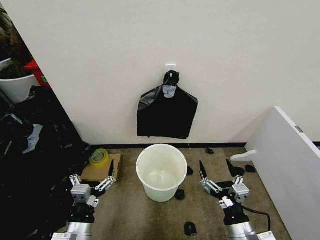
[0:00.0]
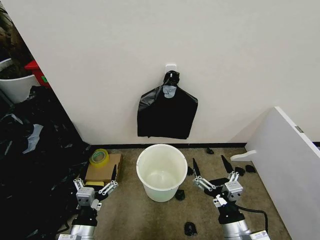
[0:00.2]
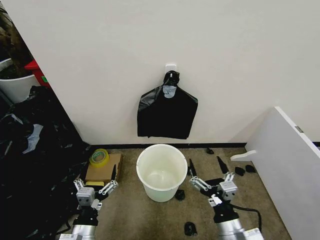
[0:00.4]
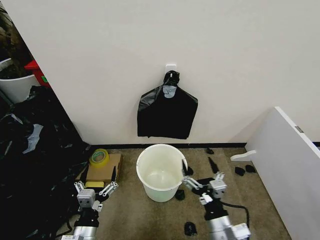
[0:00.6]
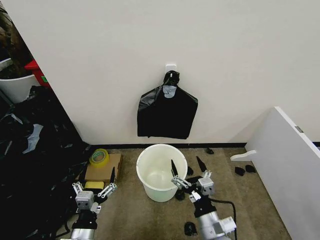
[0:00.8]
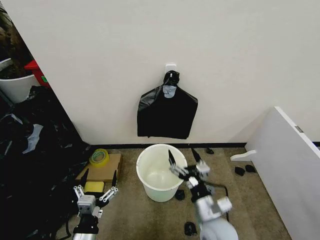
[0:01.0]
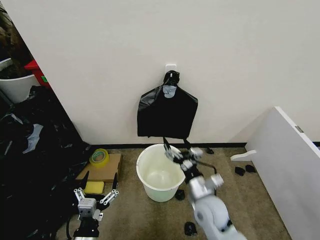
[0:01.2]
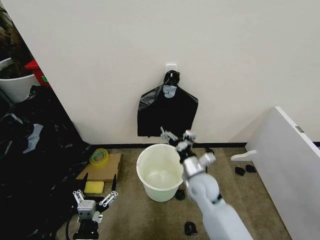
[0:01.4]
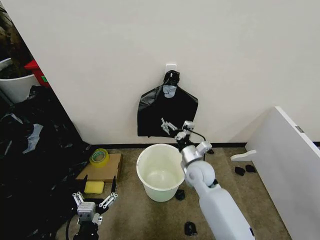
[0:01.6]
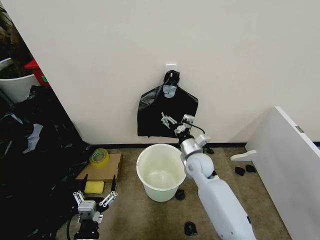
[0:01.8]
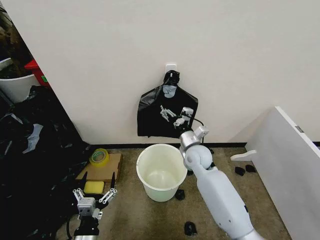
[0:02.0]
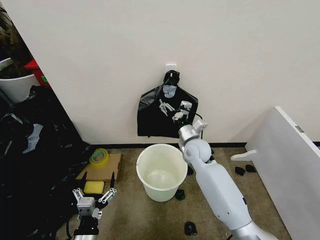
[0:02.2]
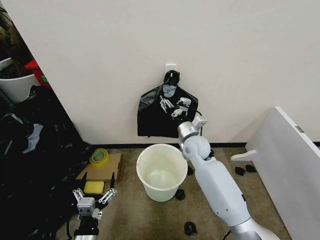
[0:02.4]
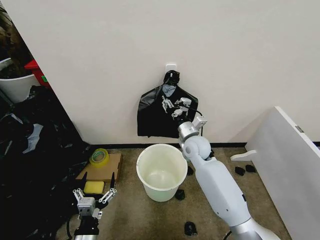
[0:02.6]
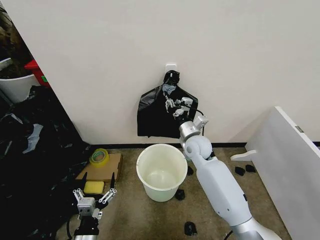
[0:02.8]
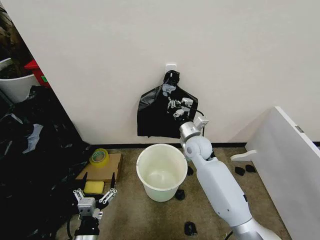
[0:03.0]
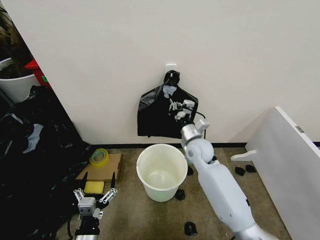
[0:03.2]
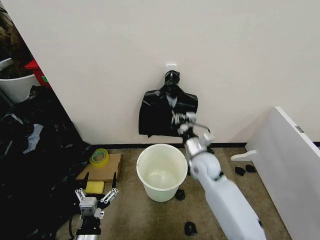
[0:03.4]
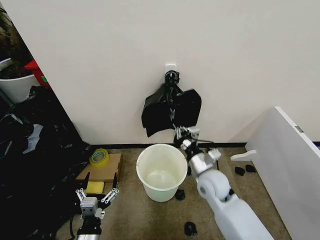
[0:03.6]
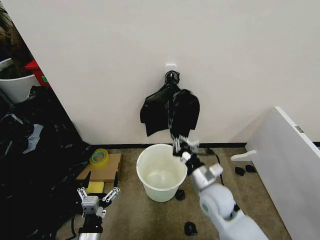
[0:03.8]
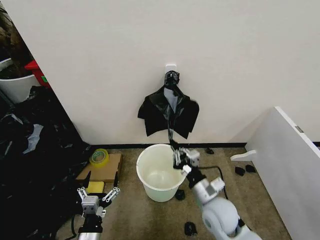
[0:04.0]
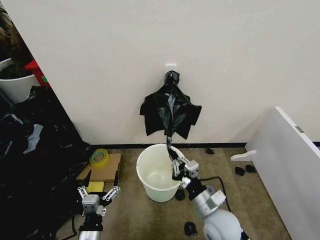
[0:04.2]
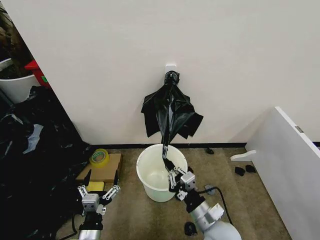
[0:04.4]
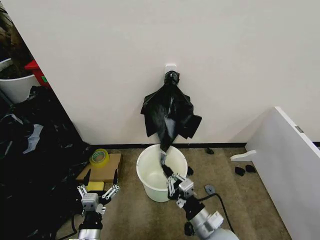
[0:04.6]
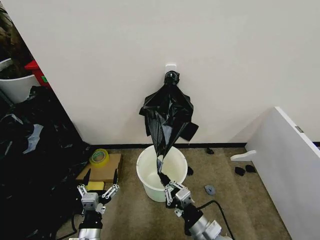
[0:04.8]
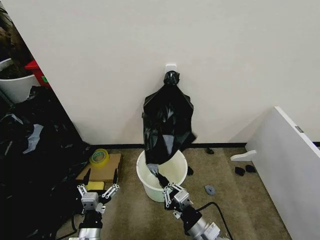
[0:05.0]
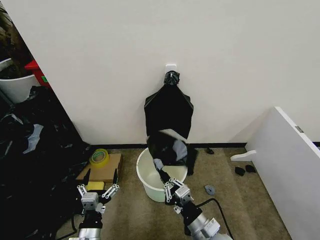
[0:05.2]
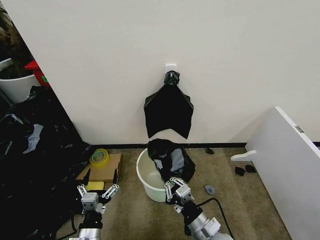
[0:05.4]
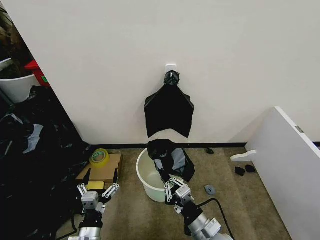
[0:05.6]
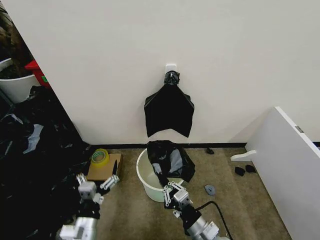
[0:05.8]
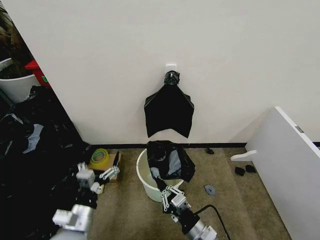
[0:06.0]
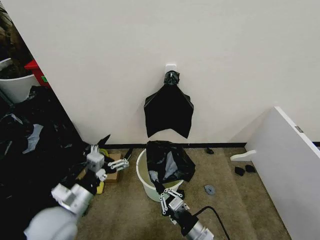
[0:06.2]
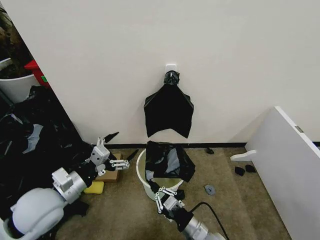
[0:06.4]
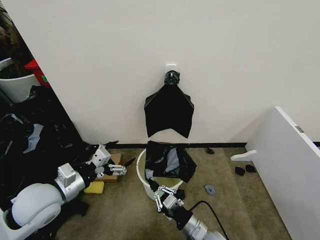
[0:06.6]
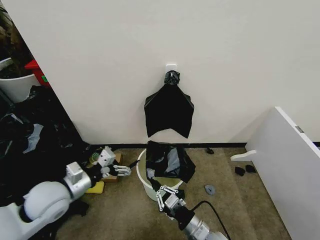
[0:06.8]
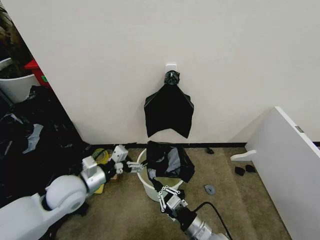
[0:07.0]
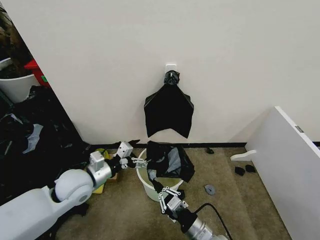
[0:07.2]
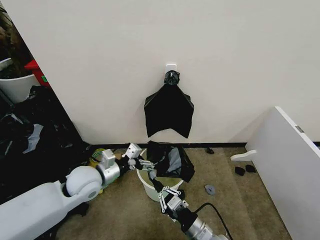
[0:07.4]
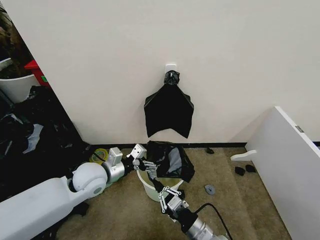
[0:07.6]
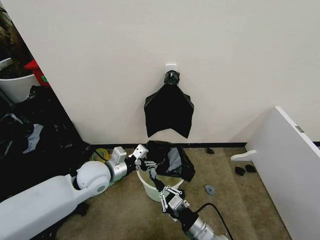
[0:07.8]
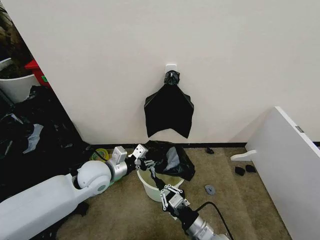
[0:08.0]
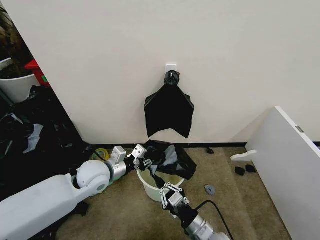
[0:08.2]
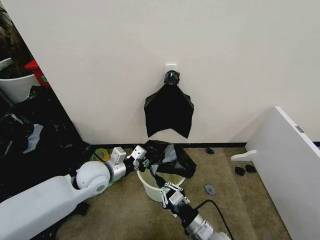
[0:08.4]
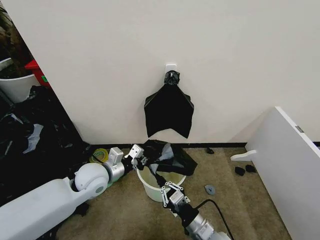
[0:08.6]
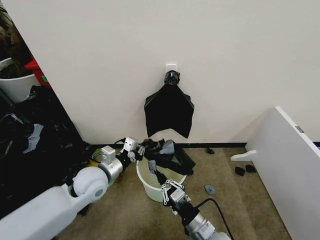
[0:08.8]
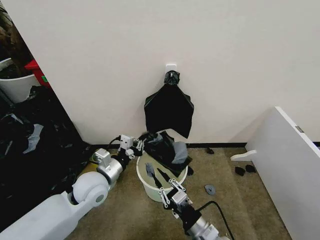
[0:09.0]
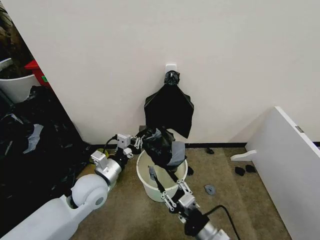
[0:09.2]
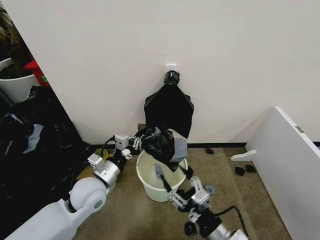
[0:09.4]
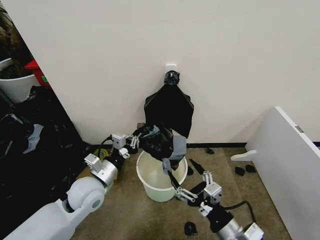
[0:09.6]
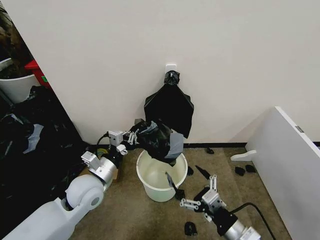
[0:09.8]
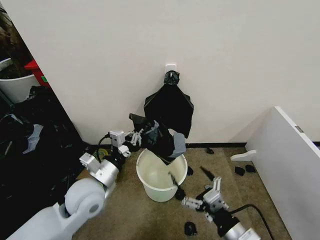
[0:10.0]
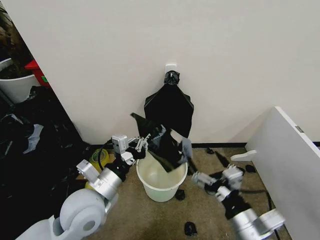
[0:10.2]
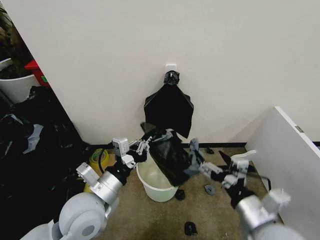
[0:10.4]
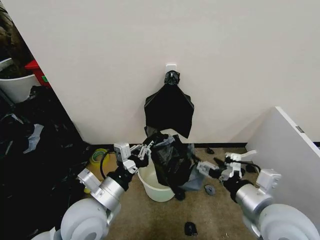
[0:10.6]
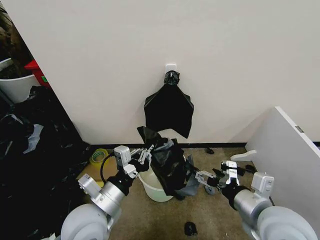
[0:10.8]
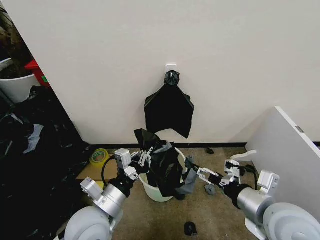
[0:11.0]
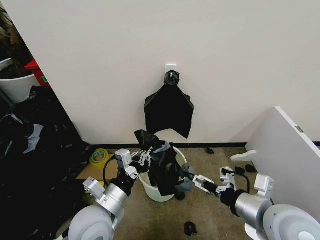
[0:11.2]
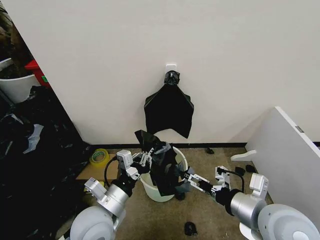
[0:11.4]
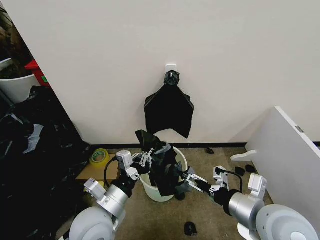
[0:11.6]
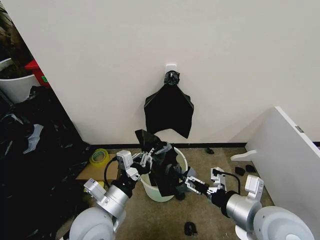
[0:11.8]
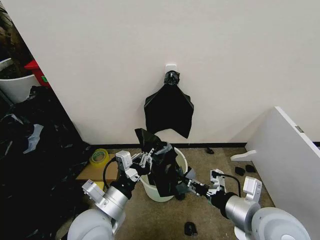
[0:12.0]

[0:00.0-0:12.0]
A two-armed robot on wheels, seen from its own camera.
Task of the whole recording: Place the garbage bag over the trash bin.
0:01.6 to 0:03.0: The right gripper is displaced forward and upward by about 10 cm, and closes.
0:03.0 to 0:04.4: The right gripper goes approximately 25 cm backward.
0:04.4 to 0:06.0: The right gripper shifts by approximately 5 cm. Meanwhile the left gripper moves upward, roughly 5 cm.
0:06.0 to 0:07.6: The left gripper travels forward by about 15 cm.
0:07.6 to 0:09.0: The left gripper closes.
0:09.0 to 0:10.4: The left gripper goes some 10 cm backward and upward. Meanwhile the right gripper goes some 15 cm upward and to the right, and opens.
0:10.4 to 0:12.0: The right gripper closes its fingers.

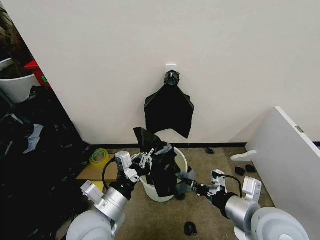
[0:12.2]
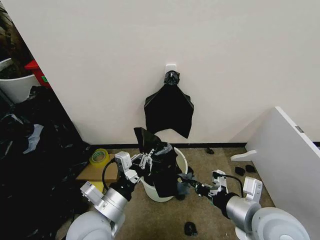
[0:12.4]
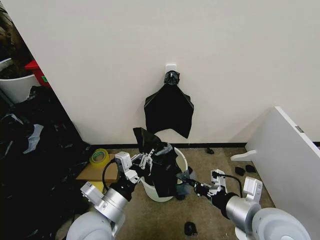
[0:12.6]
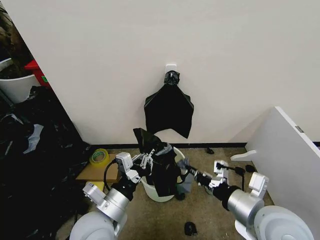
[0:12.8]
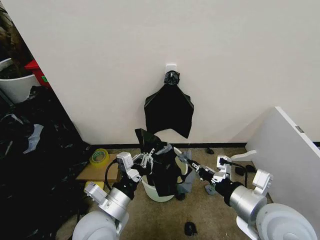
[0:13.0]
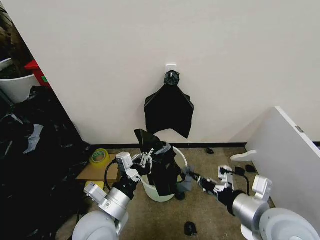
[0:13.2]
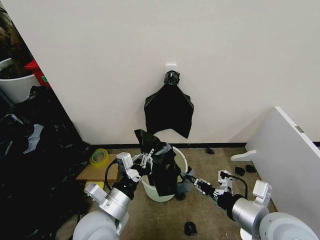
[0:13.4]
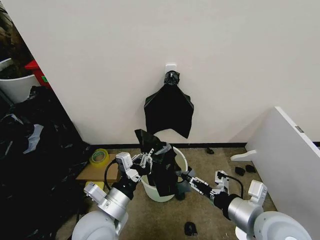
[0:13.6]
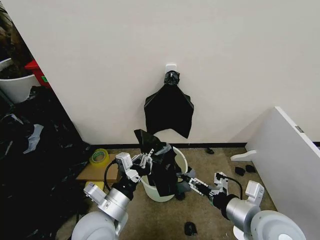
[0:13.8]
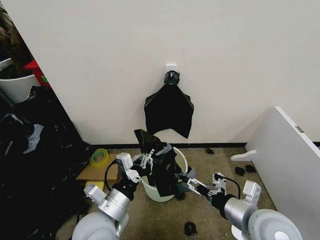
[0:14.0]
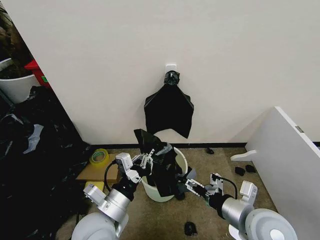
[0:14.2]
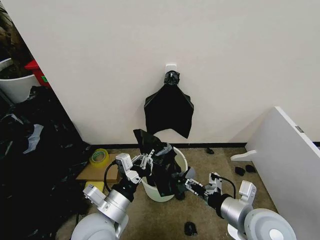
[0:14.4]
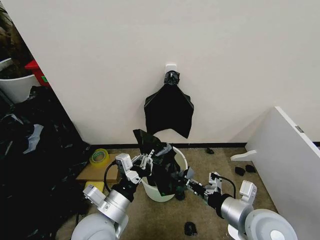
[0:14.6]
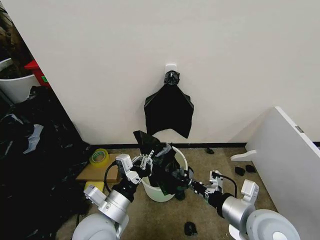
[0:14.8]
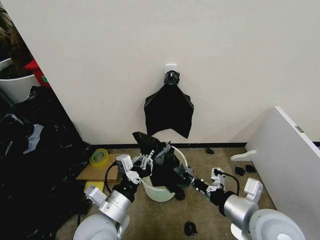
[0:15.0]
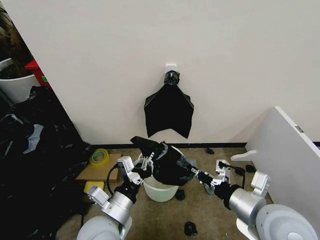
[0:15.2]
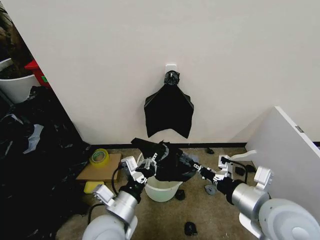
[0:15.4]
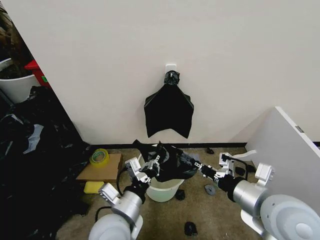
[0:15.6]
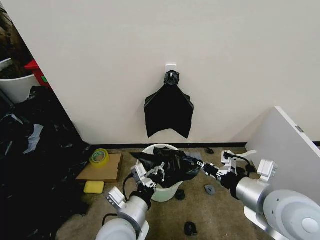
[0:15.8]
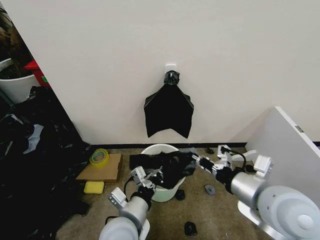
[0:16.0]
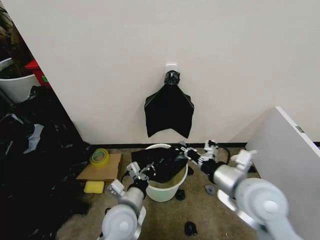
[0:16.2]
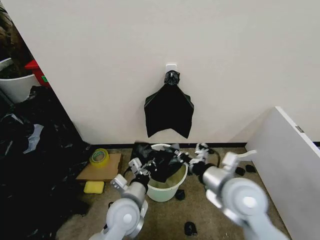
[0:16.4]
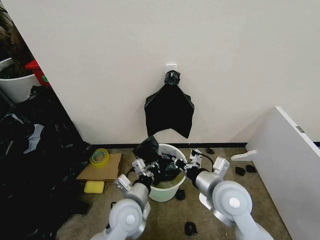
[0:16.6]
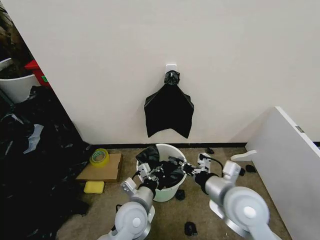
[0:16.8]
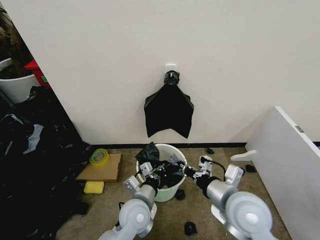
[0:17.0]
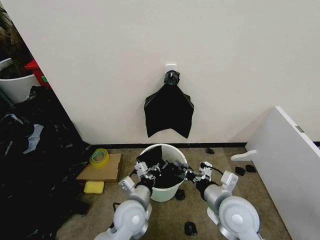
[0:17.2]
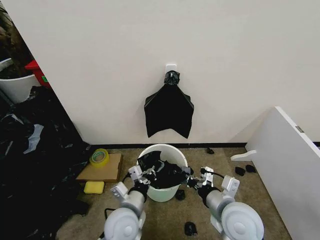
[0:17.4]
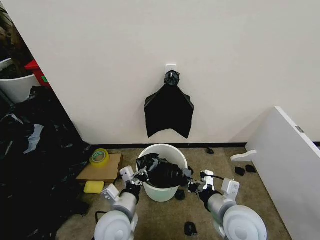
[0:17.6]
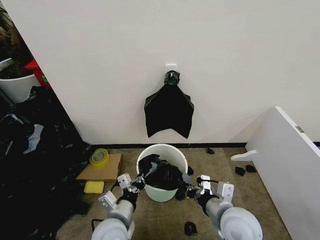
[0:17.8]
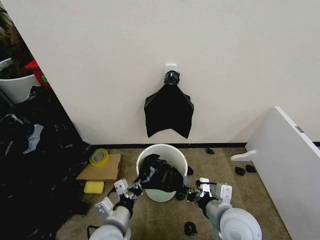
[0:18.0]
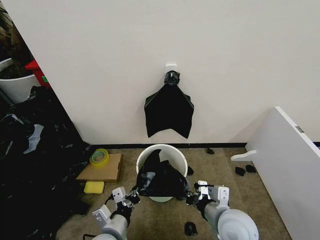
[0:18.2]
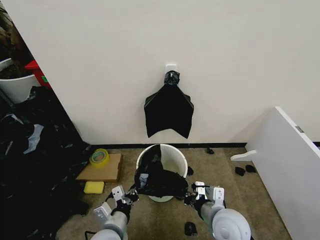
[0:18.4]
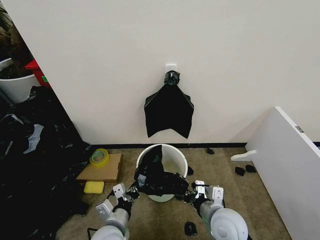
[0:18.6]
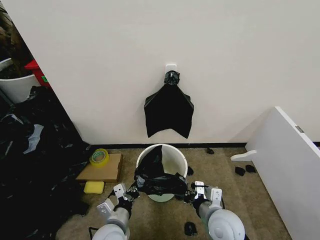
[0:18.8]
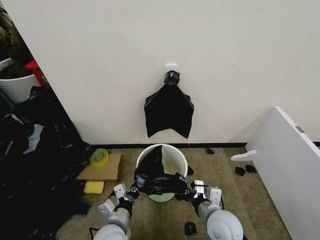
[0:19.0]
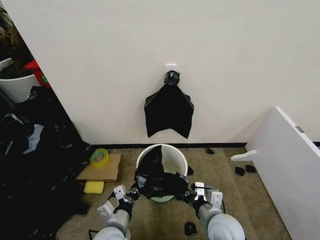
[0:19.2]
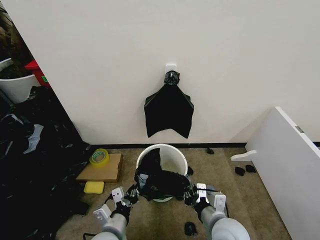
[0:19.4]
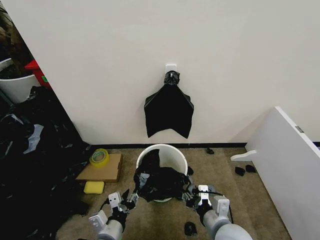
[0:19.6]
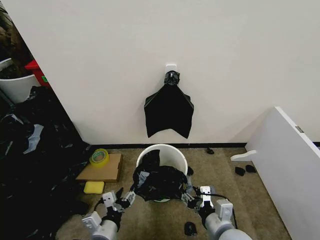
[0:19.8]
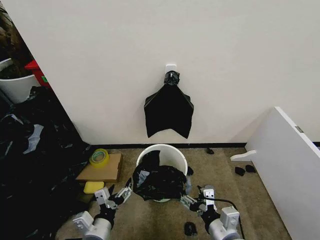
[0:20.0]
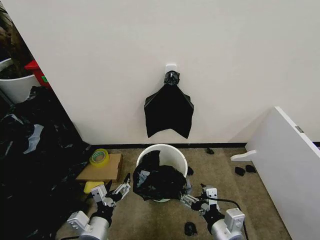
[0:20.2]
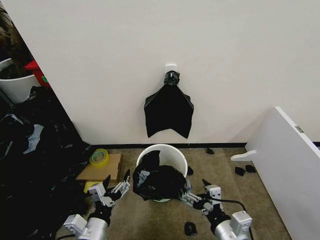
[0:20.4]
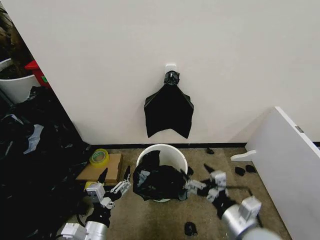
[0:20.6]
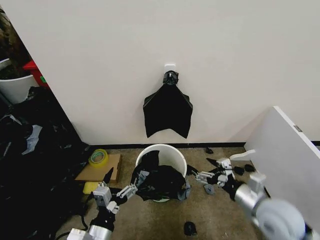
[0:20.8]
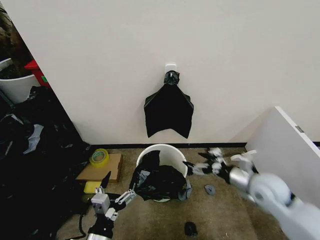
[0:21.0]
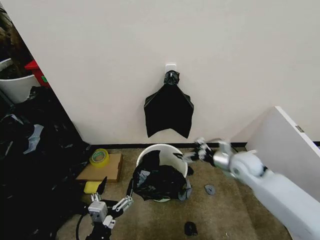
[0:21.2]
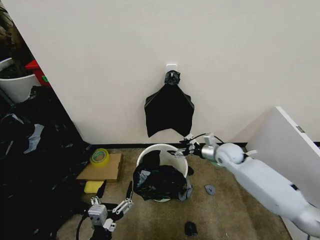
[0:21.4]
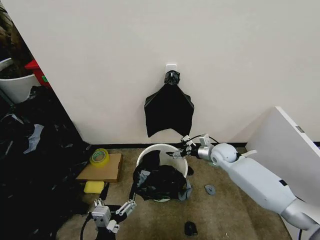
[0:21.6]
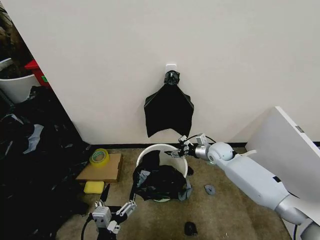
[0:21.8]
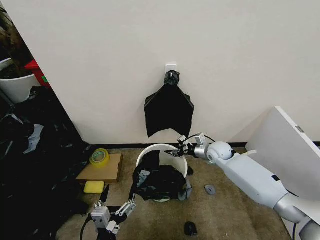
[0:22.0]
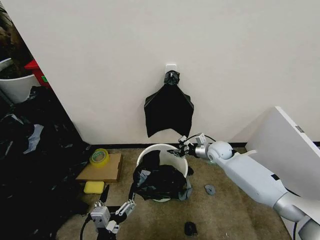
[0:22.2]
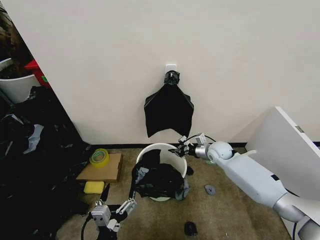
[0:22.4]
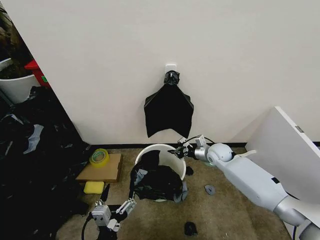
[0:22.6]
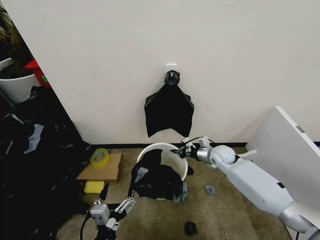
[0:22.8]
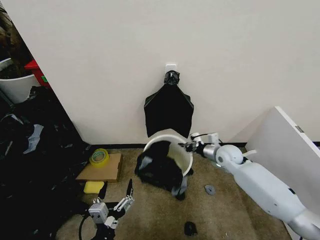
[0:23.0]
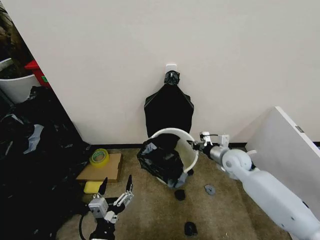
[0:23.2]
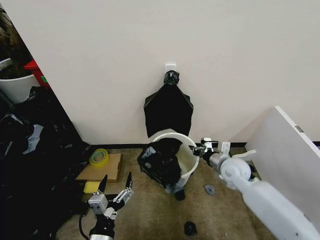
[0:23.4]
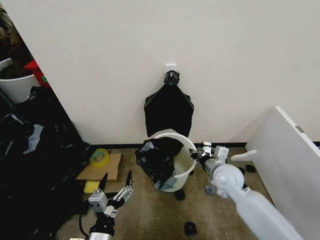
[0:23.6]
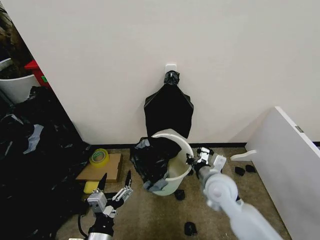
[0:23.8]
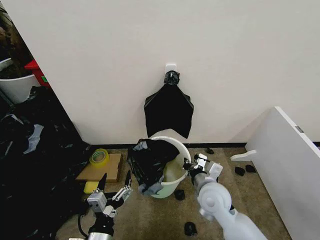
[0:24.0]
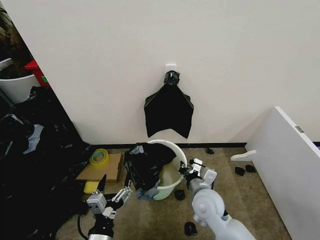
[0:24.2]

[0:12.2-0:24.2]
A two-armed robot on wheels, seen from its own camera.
Task of the whole recording: Place the garbage bag over the trash bin.
0:12.2 to 0:13.8: The right gripper opens.
0:13.8 to 0:15.2: The right gripper closes its fingers.
0:15.2 to 0:16.6: The right gripper goes approximately 10 cm forward, to the left and downward, while the left gripper moves downward and forward, approximately 10 cm.
0:16.6 to 0:18.2: The right gripper moves downward and backward, some 10 cm. Meanwhile the left gripper moves backward and to the left, roughly 10 cm.
0:18.2 to 0:19.8: The left gripper opens, while the right gripper ends up approximately 5 cm from where it was, and opens up.
0:19.8 to 0:21.2: The right gripper travels forward and to the right by some 25 cm, and opens. Meanwhile the left gripper travels backward by about 5 cm.
0:21.2 to 0:22.6: The right gripper goes approximately 10 cm forward and downward, and closes.
0:22.6 to 0:24.2: The right gripper goes approximately 25 cm backward and to the left.
